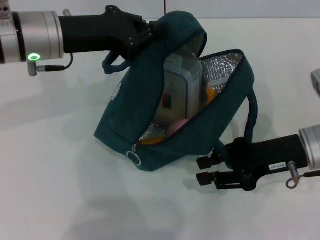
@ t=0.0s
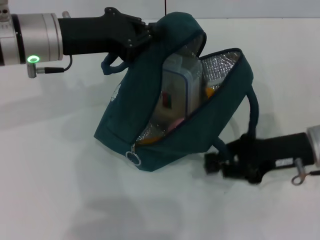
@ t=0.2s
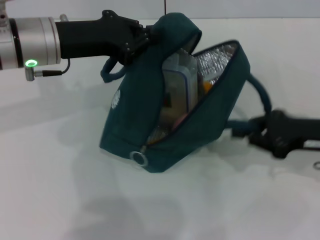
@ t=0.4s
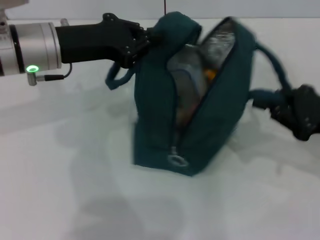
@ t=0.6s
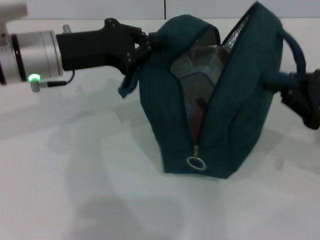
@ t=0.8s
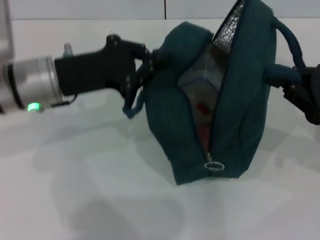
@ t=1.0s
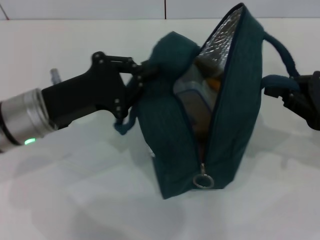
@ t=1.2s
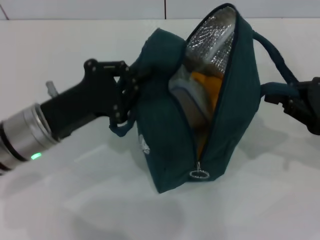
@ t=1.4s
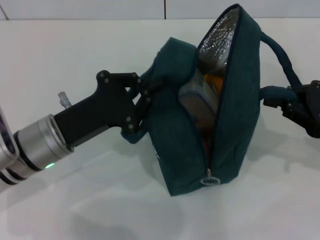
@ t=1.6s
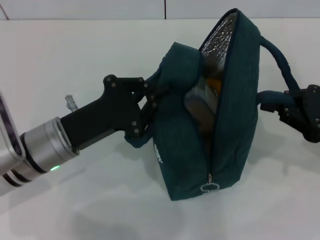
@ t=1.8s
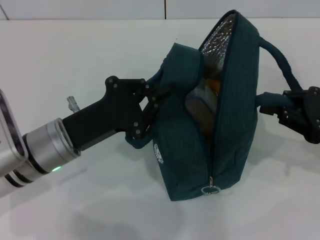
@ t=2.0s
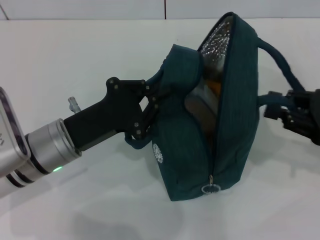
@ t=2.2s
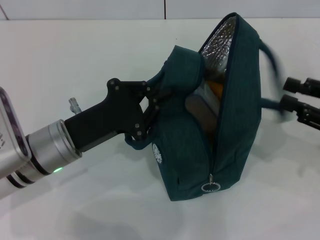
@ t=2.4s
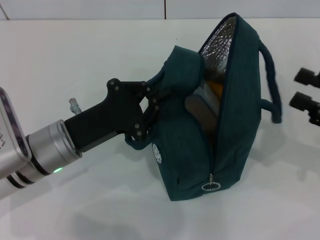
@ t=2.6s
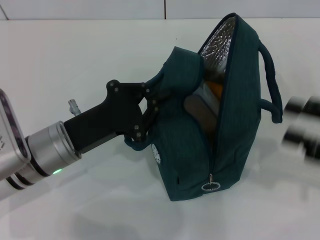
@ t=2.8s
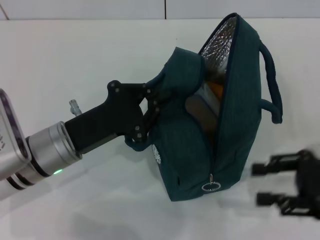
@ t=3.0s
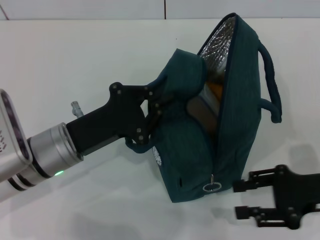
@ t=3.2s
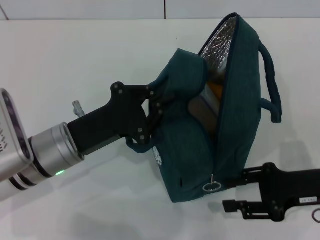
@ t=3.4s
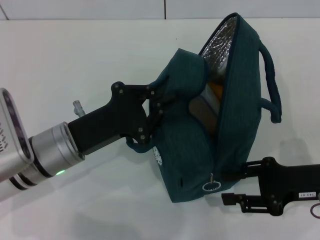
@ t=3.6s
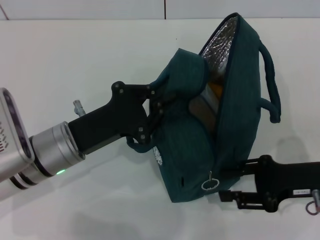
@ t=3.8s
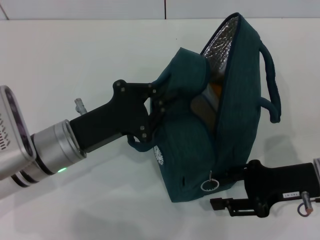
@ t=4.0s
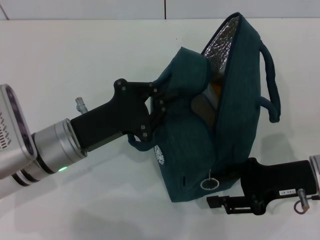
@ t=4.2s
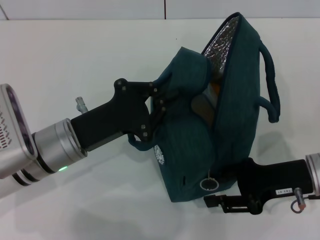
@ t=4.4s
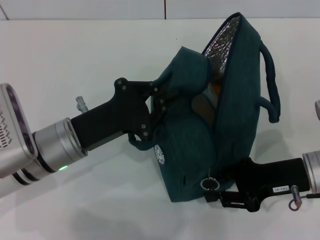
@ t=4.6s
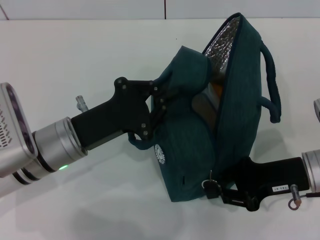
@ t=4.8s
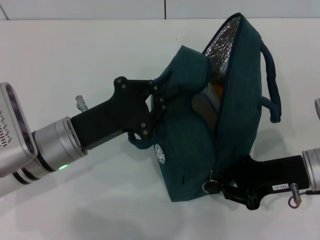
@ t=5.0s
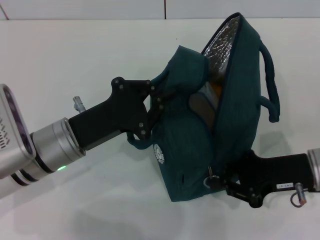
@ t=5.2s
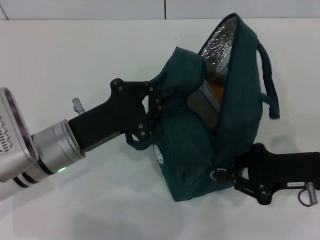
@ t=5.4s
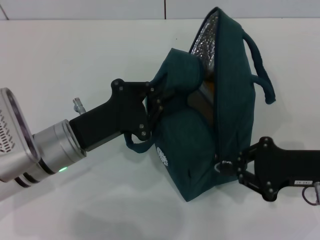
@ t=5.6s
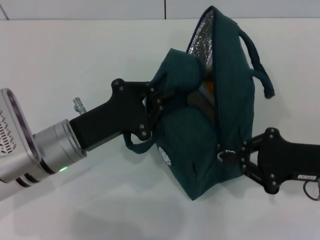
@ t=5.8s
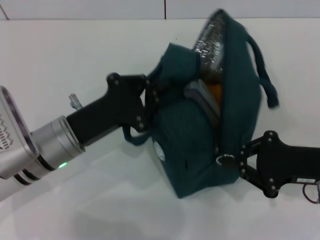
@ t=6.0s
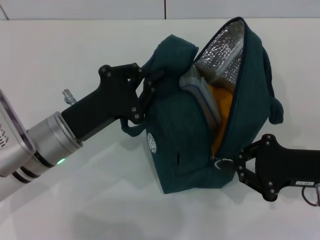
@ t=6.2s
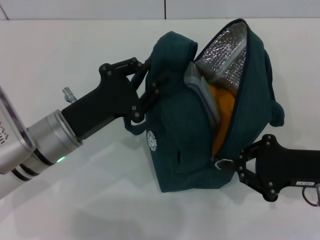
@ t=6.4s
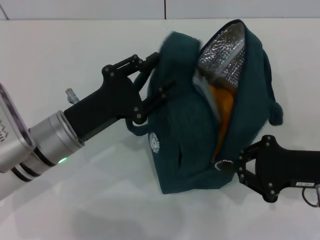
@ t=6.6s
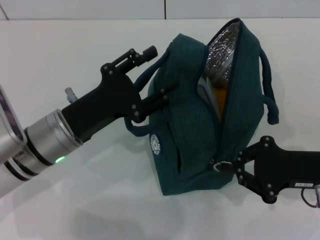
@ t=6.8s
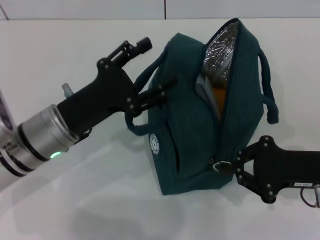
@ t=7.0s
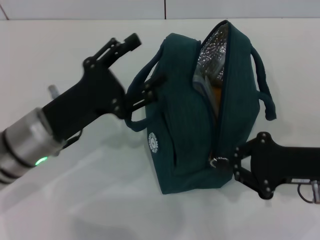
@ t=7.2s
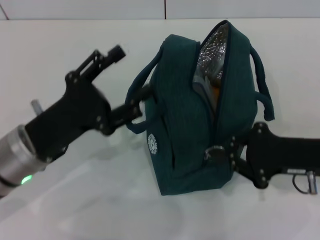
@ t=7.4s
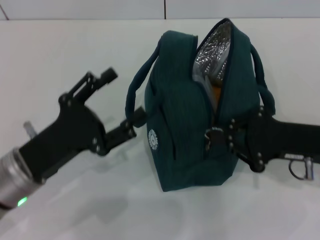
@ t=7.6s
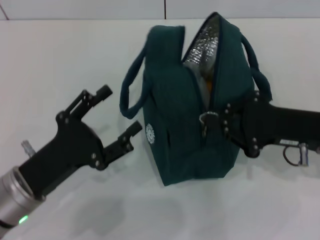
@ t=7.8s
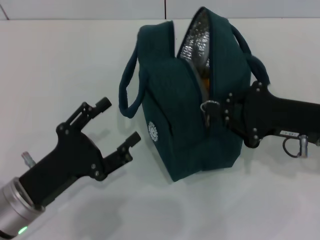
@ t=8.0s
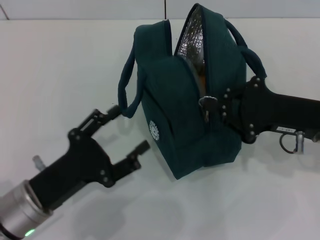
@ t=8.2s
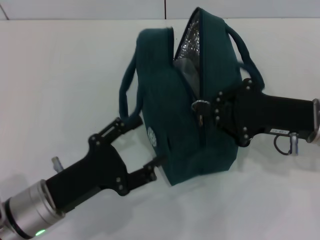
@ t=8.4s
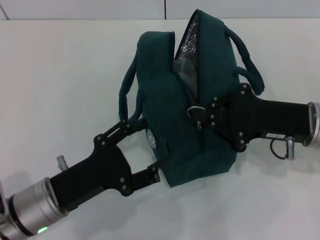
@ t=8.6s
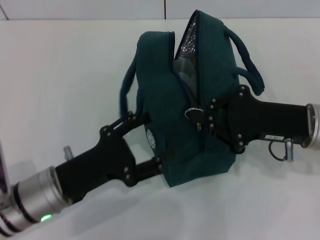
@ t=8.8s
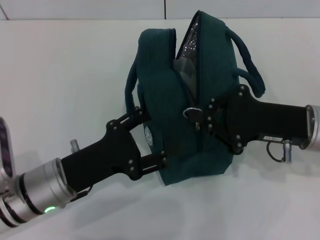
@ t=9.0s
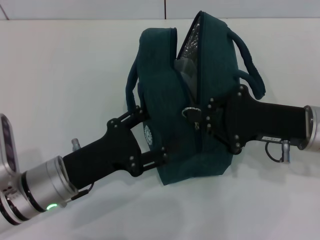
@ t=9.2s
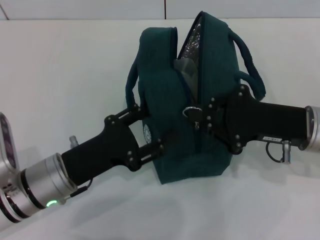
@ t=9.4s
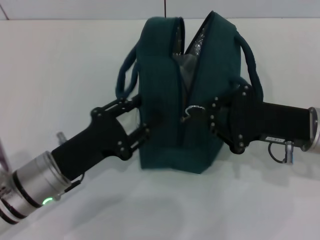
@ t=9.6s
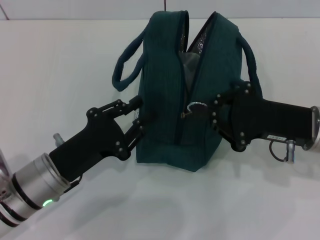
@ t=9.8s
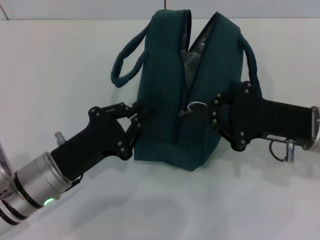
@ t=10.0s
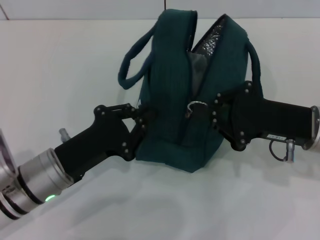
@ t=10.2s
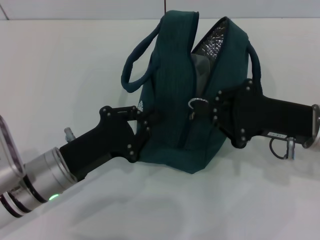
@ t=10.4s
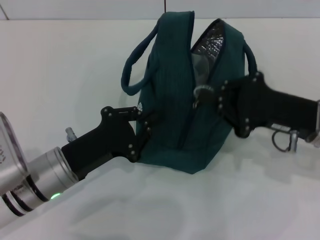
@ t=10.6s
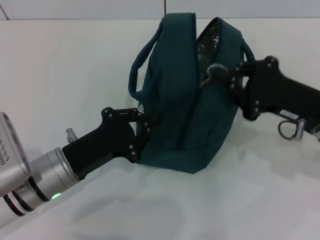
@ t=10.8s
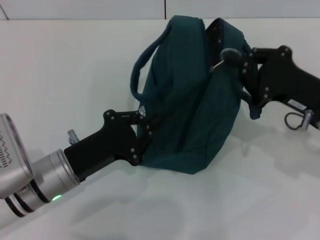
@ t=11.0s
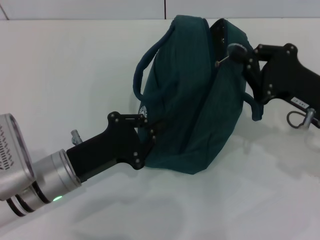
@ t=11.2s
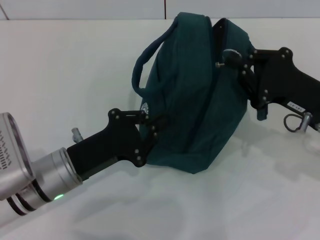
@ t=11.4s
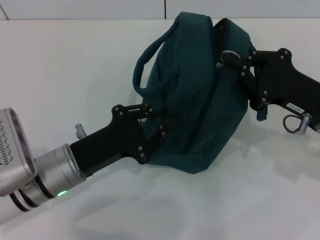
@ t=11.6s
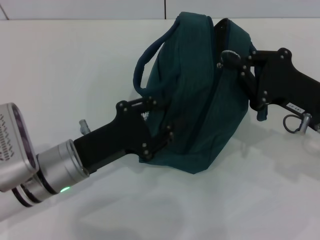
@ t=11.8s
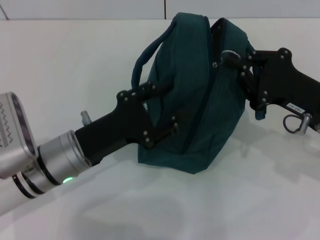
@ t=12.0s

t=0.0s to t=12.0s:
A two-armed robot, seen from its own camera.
Step, t=0.0s to t=2.2s: Hold the lunch bag with your right hand.
Step, t=2.6s to t=6.8s: Hold the lunch bag with your left hand.
t=0.0s to t=1.6s: The left gripper goes roughly 15 cm downward and backward; the right gripper travels to the right by some 10 cm, and closes.
t=1.6s to t=3.0s: The right gripper opens.
t=3.0s to t=4.4s: The right gripper is displaced to the left by about 5 cm.
t=4.4s to t=6.0s: The right gripper closes up.
t=6.0s to t=7.6s: The left gripper shifts approximately 5 cm backward, and opens up.
t=9.0s to t=10.4s: The left gripper closes.
t=10.4s to t=12.0s: The left gripper opens up.

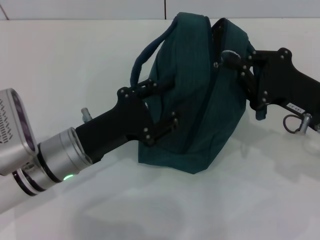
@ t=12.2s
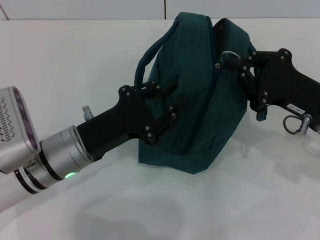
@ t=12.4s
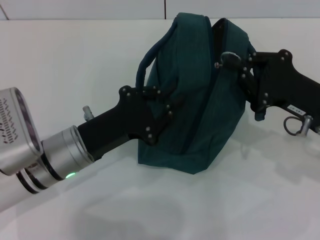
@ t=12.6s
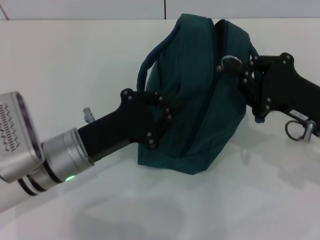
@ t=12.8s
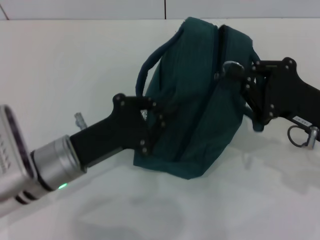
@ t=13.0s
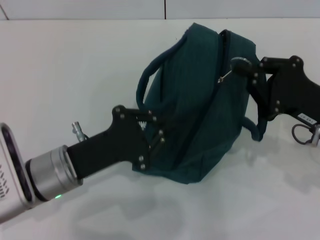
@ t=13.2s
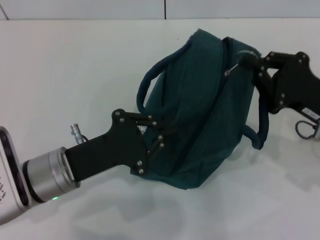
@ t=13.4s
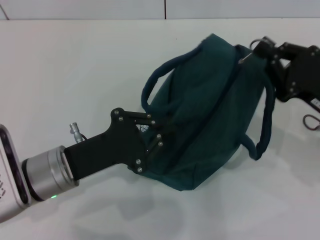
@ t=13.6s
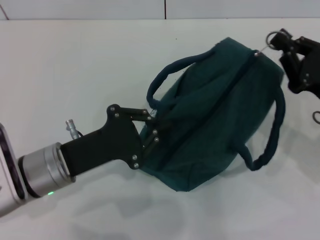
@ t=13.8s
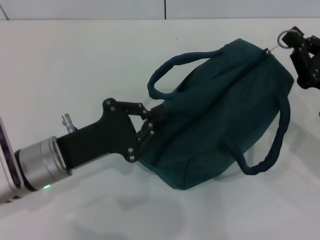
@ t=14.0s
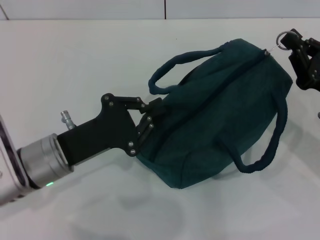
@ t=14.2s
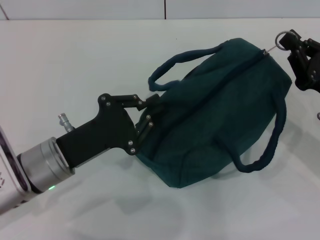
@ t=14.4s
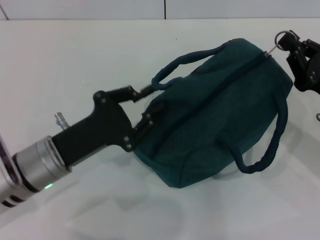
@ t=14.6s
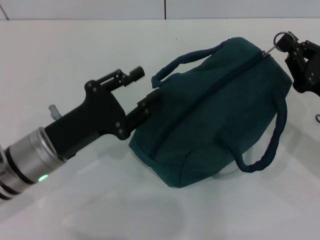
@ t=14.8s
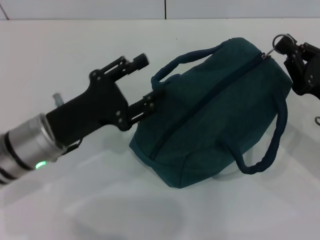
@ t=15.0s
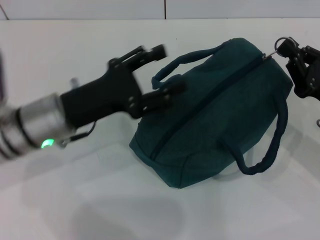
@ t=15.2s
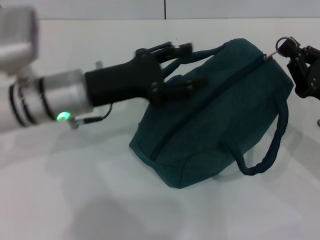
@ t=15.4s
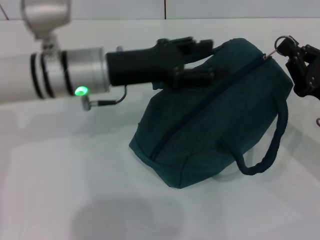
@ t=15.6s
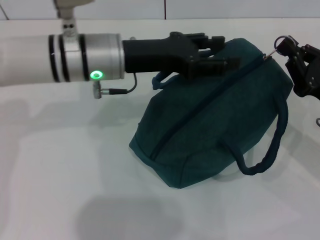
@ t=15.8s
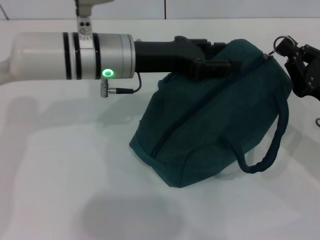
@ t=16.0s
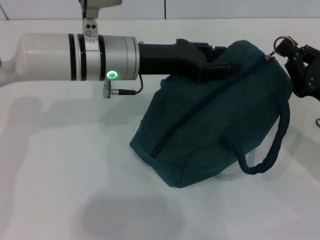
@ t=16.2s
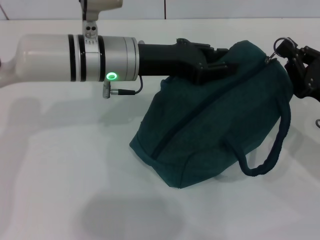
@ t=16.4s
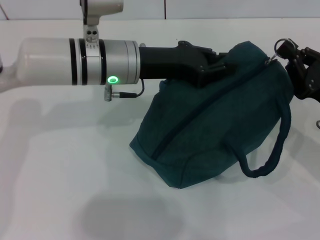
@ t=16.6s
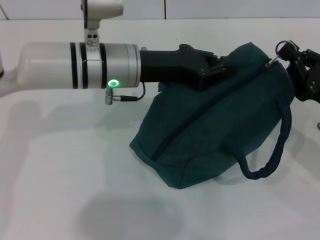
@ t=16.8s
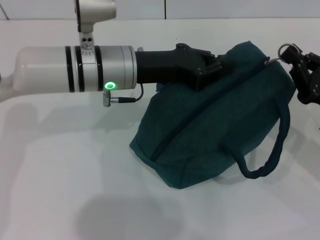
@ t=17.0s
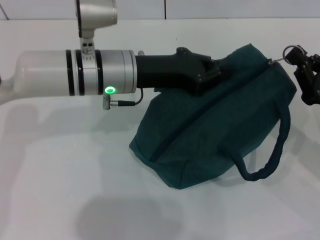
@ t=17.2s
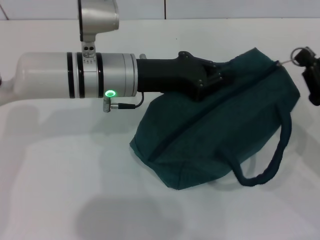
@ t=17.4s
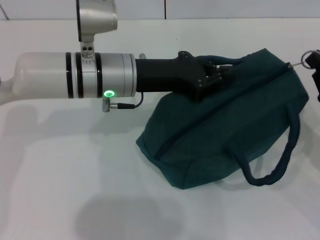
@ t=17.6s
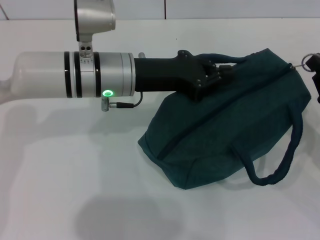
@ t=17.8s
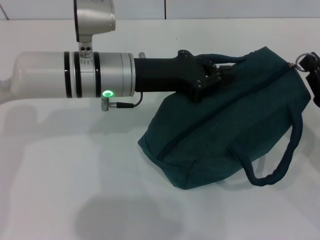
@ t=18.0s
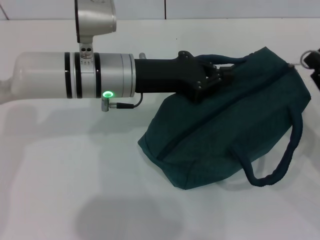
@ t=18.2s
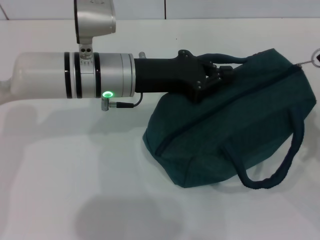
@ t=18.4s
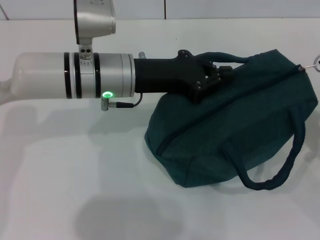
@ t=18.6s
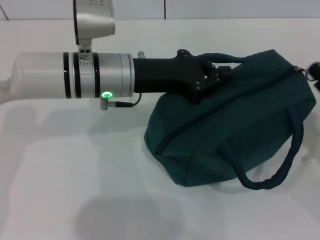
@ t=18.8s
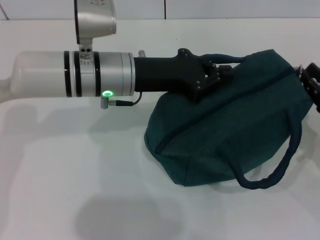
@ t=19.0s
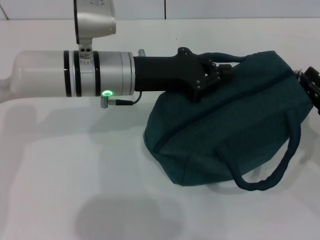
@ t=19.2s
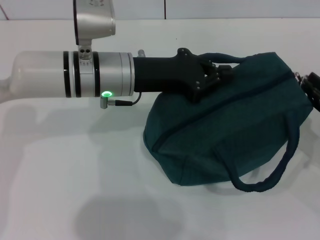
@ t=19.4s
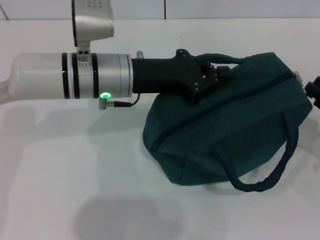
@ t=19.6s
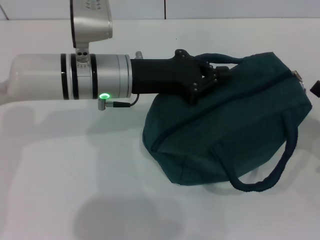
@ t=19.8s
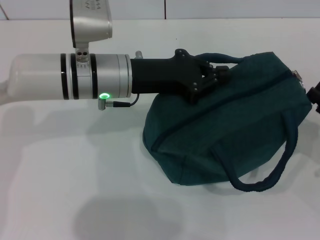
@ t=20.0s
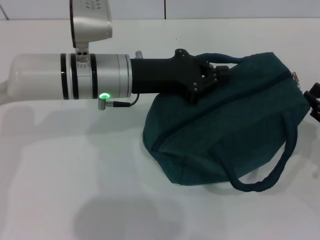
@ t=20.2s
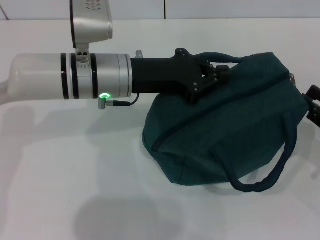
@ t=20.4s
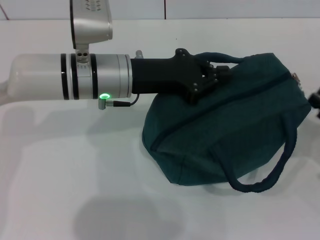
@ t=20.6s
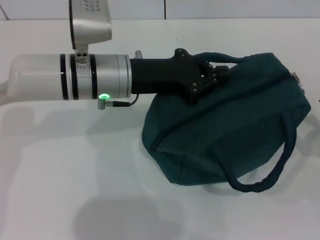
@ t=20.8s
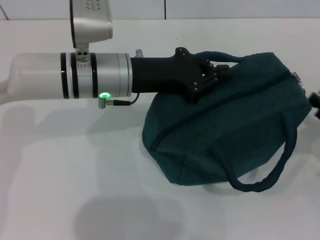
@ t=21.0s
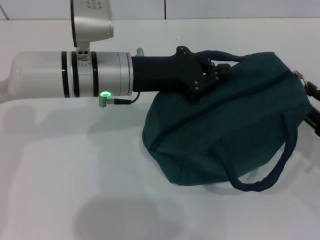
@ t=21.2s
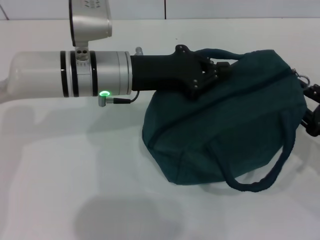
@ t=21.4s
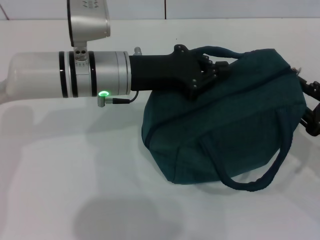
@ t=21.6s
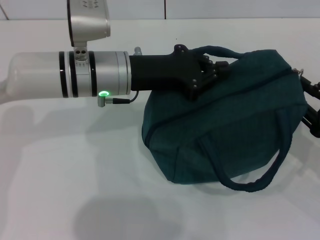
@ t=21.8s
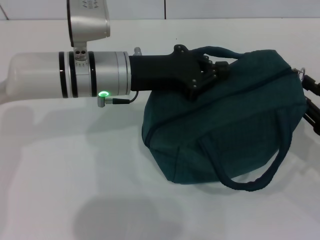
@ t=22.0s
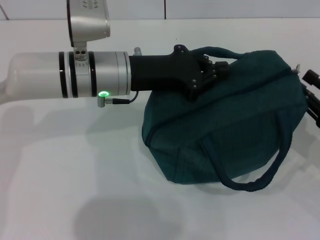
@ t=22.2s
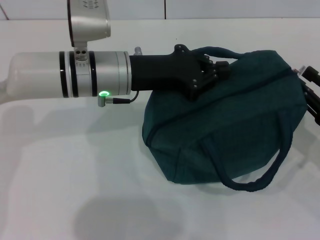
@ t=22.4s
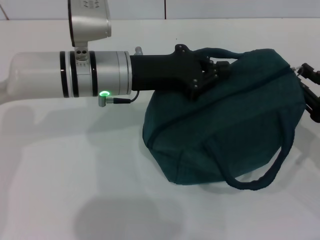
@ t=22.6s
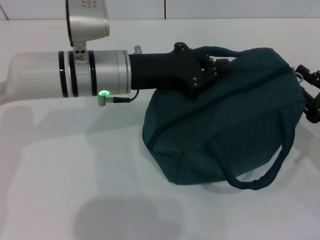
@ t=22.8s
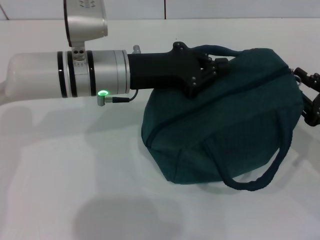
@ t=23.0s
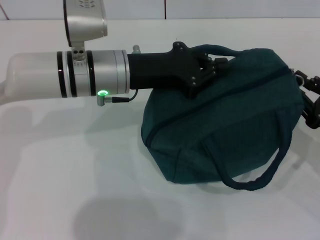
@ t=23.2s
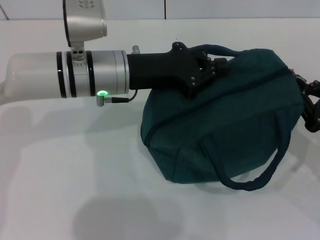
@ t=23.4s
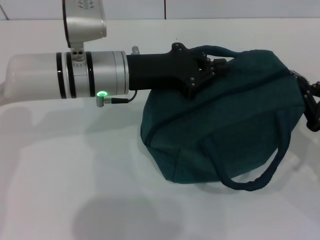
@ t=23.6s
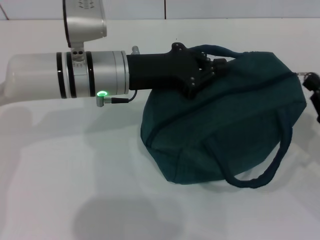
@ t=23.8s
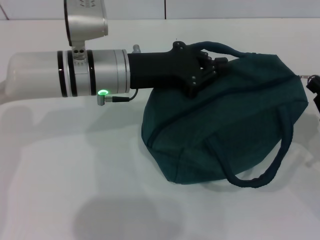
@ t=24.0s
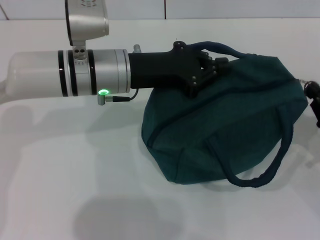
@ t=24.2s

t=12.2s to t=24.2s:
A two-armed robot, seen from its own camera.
Step, t=12.2s to t=19.6s: Zip up the lunch bag with your right hand.
t=12.2s to t=13.8s: The left gripper closes.
t=13.8s to t=15.2s: The left gripper changes place by approximately 5 cm, and opens up.
t=15.2s to t=16.6s: The left gripper is displaced to the right and forward by approximately 10 cm.
t=16.6s to t=18.2s: The left gripper closes.
t=18.2s to t=19.8s: The right gripper opens its fingers.
t=19.8s to t=22.6s: The grippers move only a little.
t=22.6s to t=24.2s: The right gripper closes.
